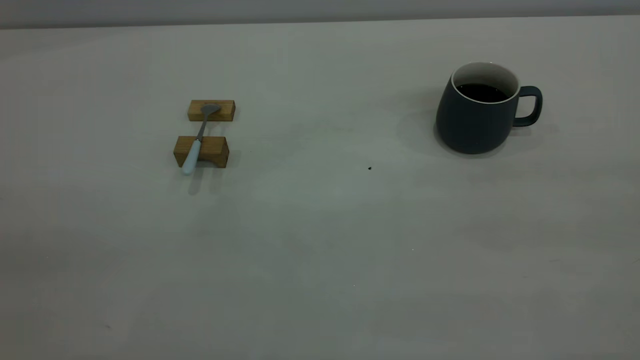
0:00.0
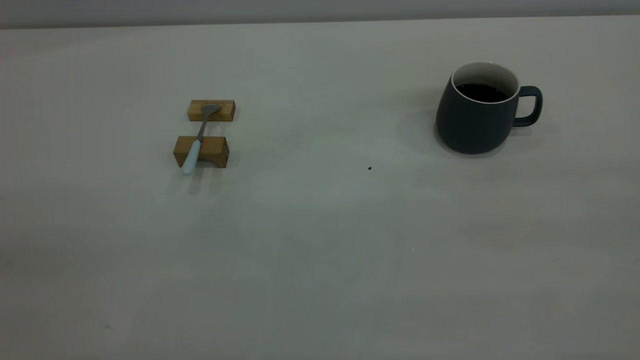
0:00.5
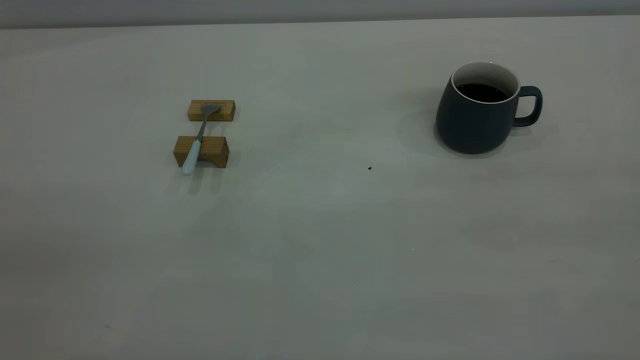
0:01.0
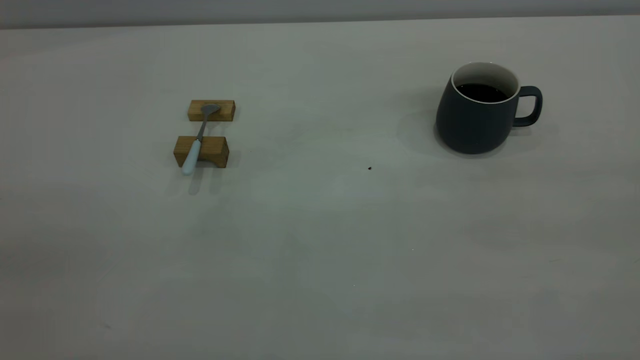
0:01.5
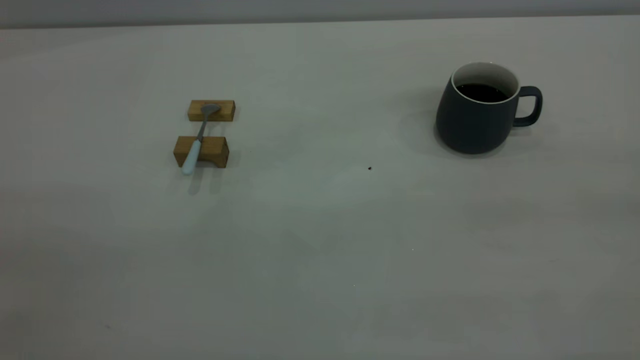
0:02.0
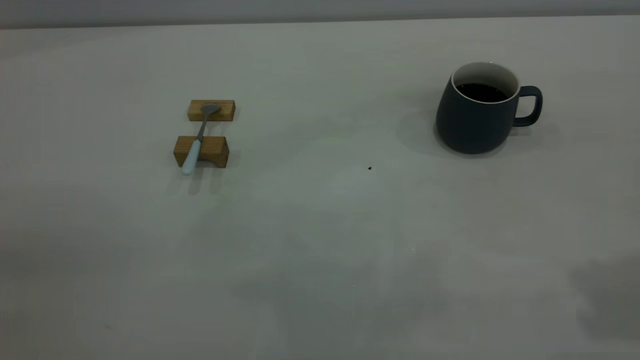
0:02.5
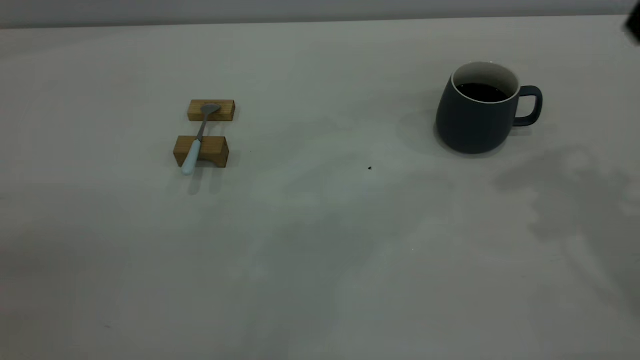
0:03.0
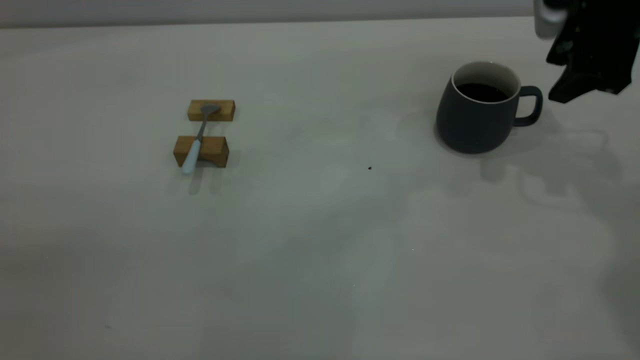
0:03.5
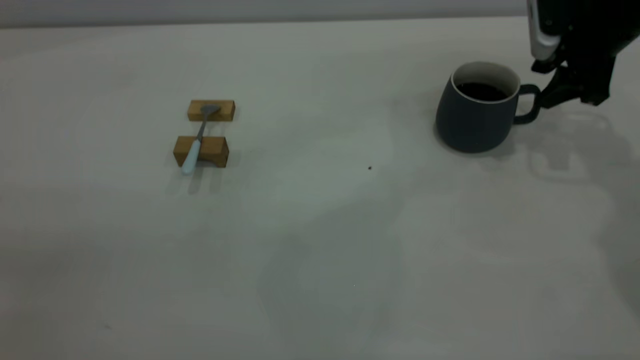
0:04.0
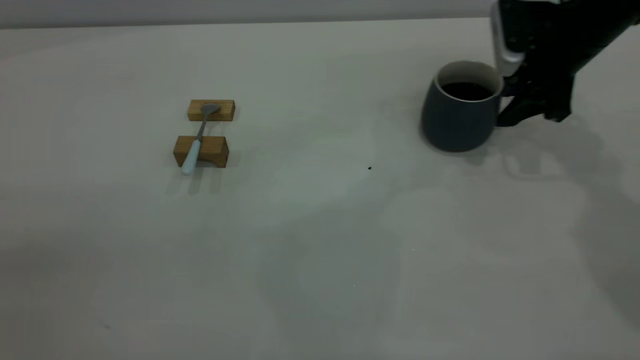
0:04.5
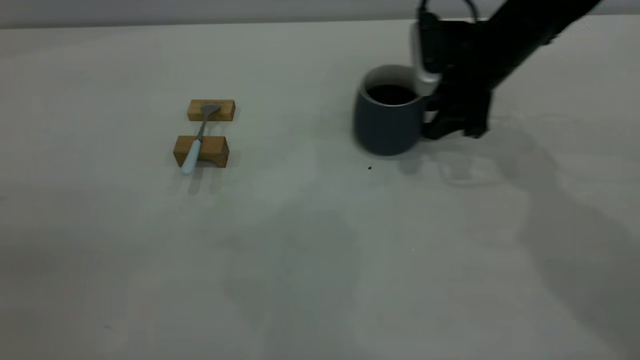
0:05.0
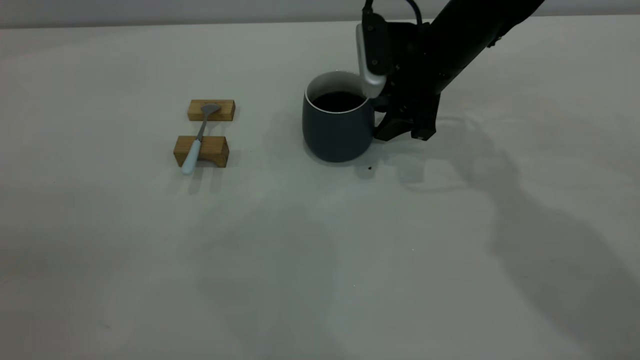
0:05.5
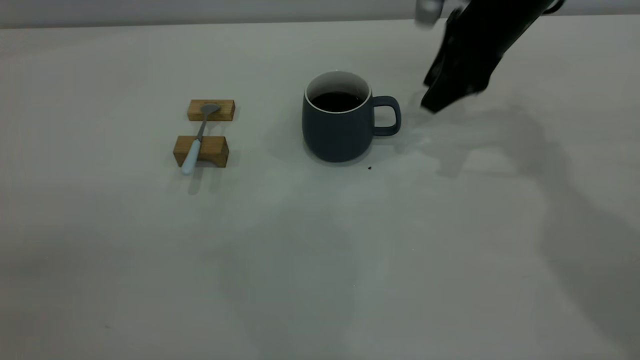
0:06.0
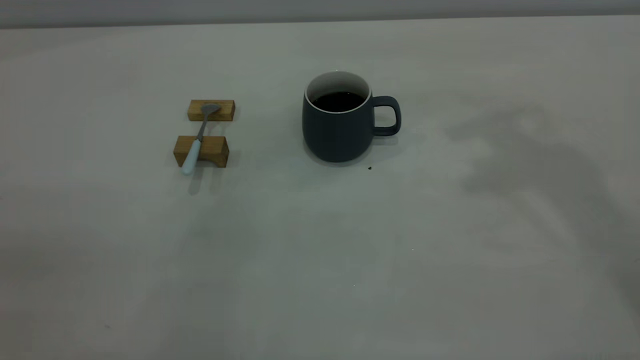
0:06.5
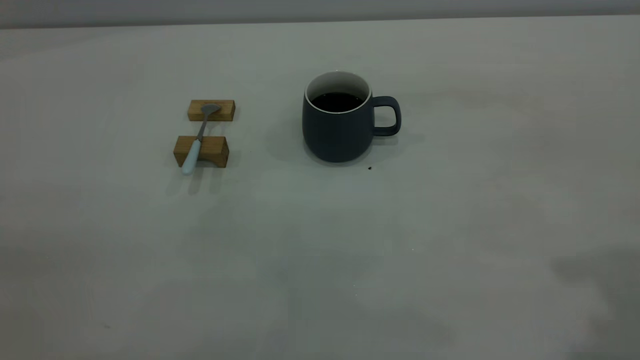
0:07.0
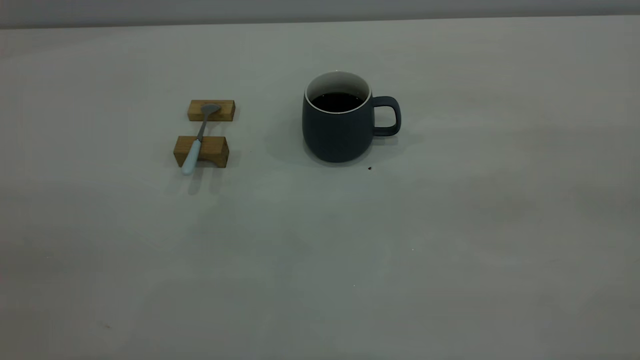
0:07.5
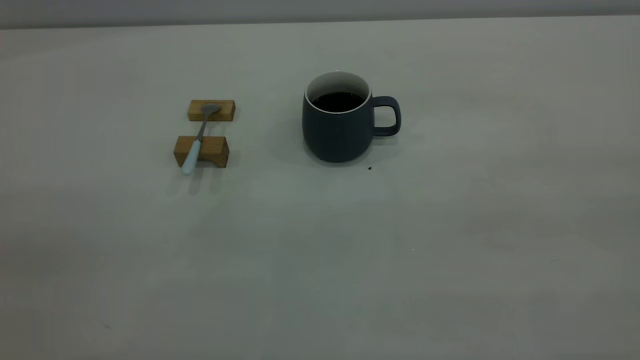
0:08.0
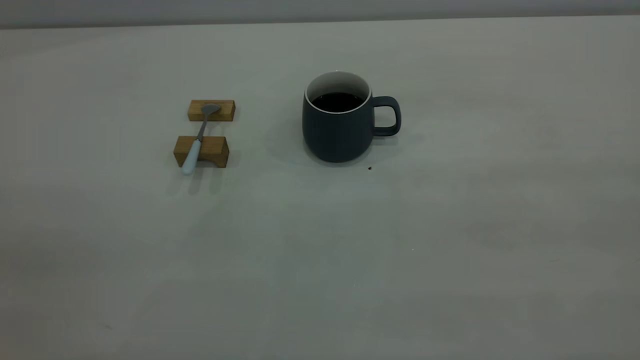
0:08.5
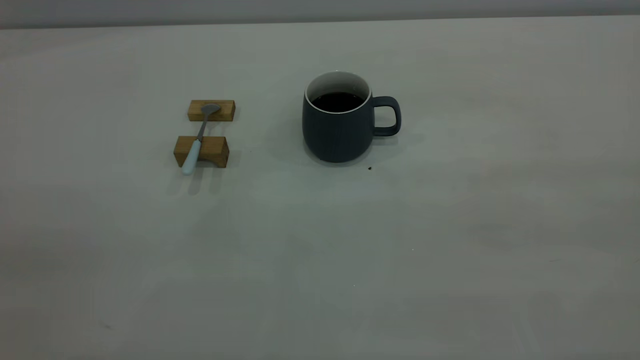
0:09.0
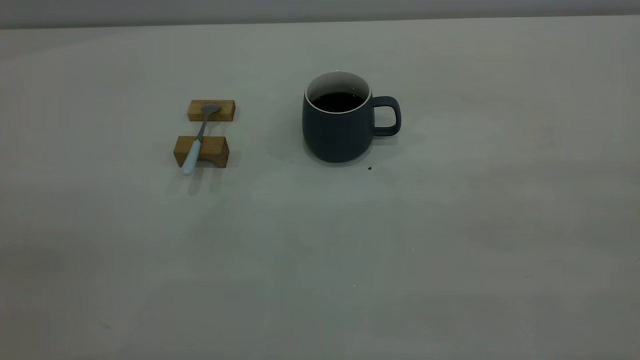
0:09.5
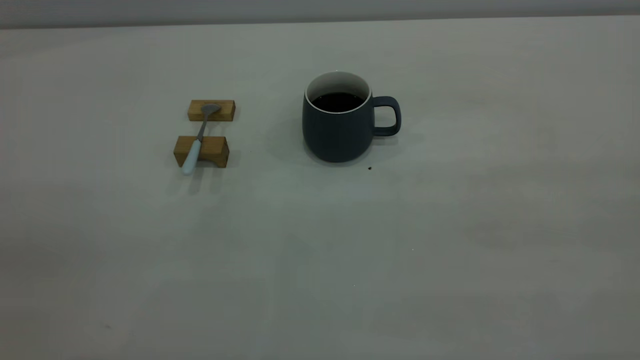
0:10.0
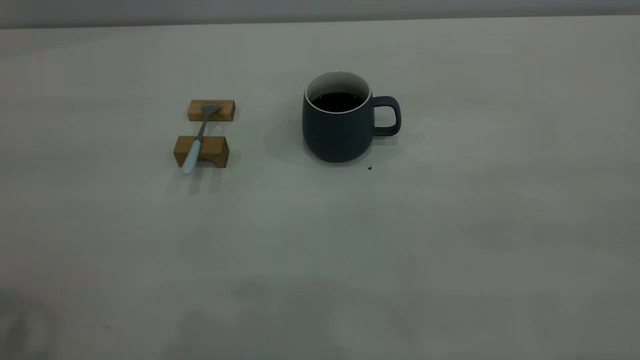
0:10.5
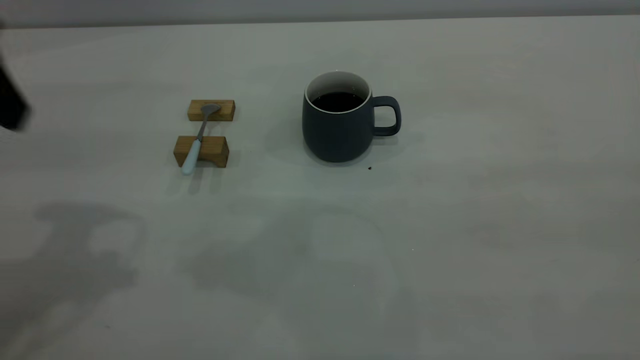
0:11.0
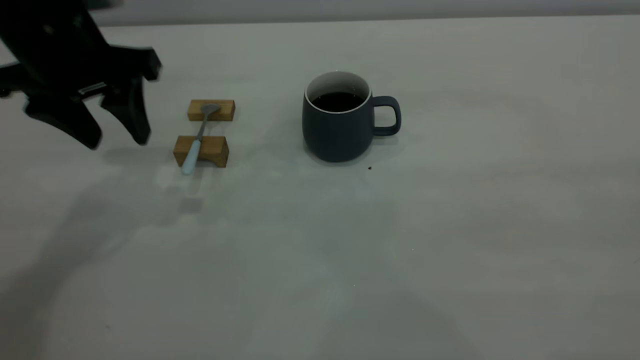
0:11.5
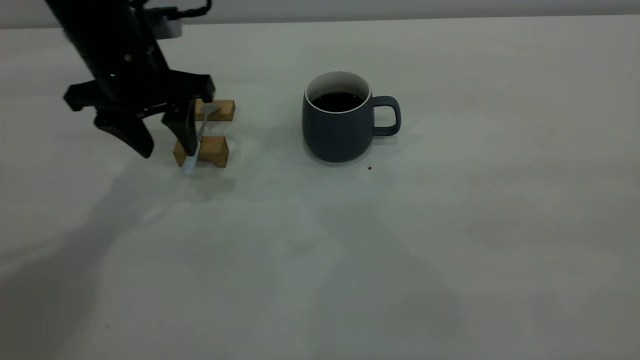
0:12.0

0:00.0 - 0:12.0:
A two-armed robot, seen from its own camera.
Step, 0:00.0 - 0:06.0: Move the cup with coffee to the center of view.
0:02.0 - 0:04.0: The right gripper heads forward and downward, covering about 50 cm, and opens.
0:04.0 - 0:06.0: The right gripper moves to the left, some 10 cm.
0:06.0 - 0:08.0: The right gripper heads backward and upward, covering roughly 50 cm.
0:08.0 - 0:10.0: Both grippers stay about where they are.
0:10.0 - 0:12.0: The left gripper travels forward and downward by some 40 cm.

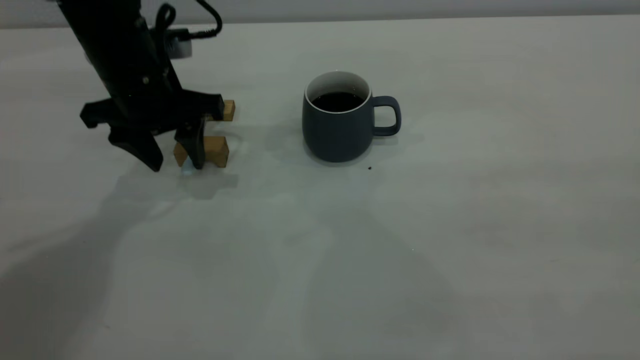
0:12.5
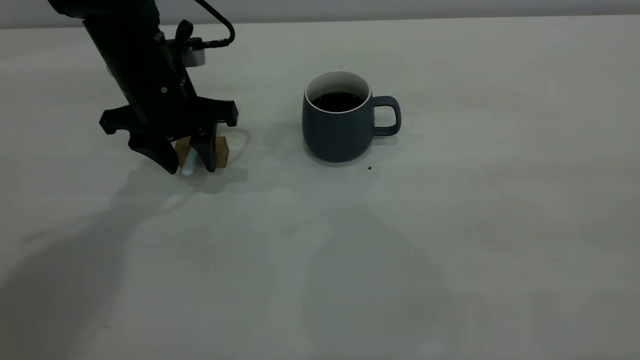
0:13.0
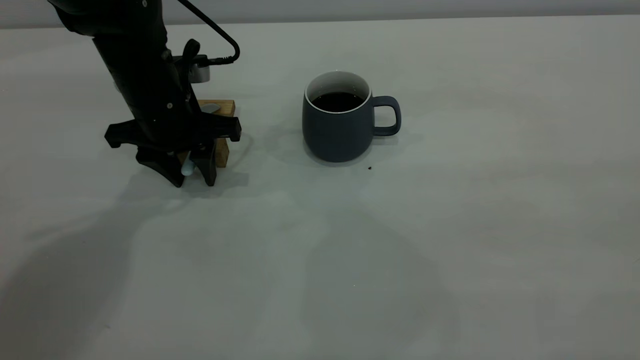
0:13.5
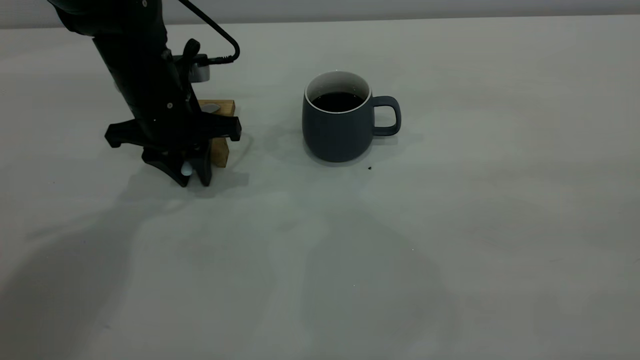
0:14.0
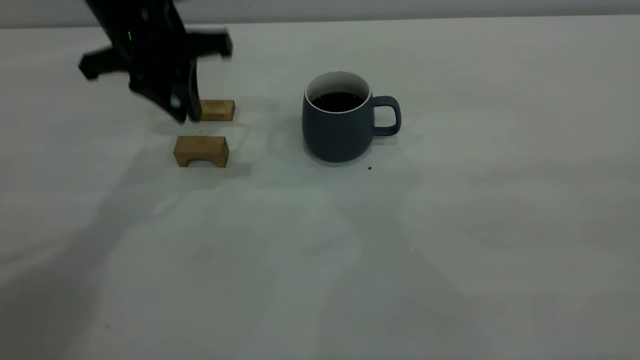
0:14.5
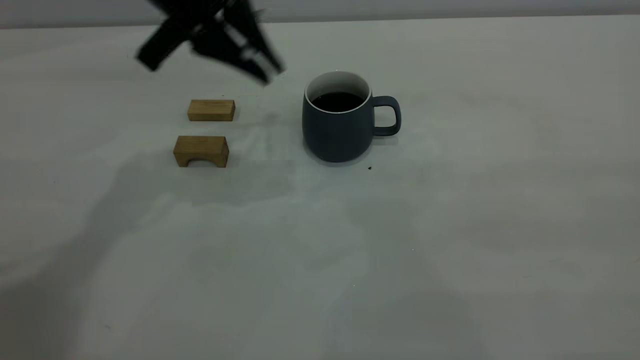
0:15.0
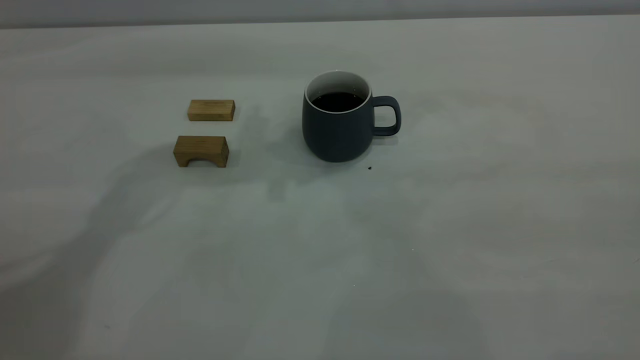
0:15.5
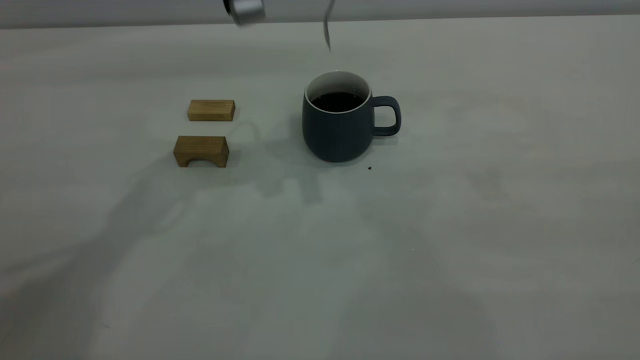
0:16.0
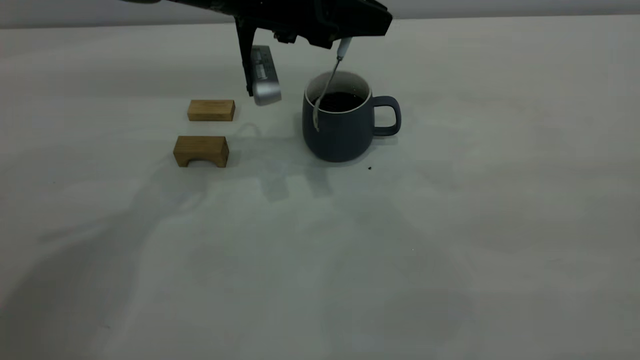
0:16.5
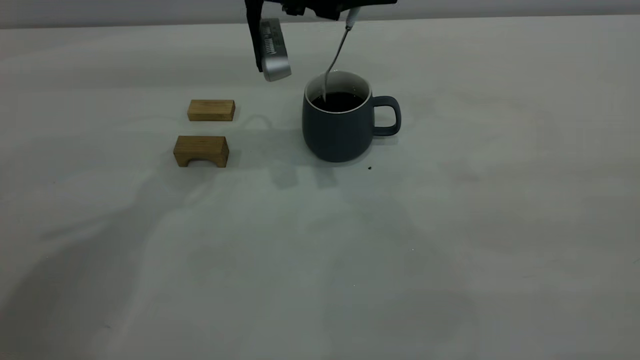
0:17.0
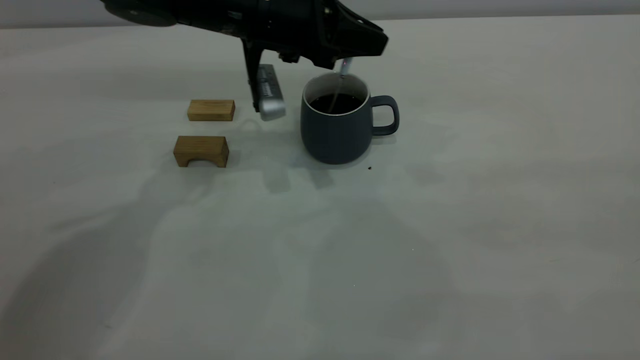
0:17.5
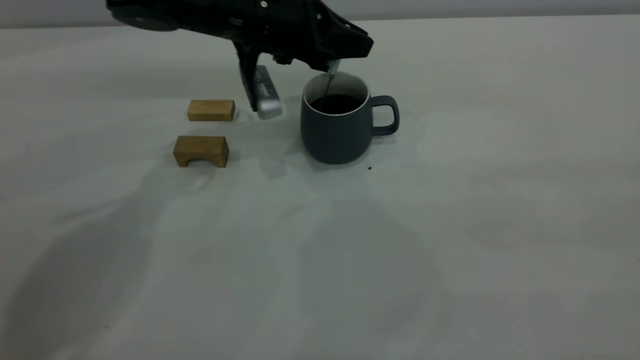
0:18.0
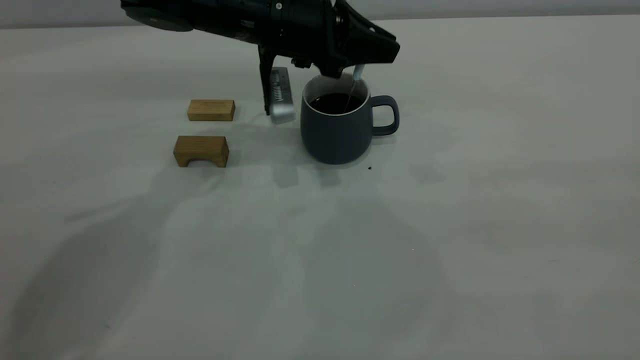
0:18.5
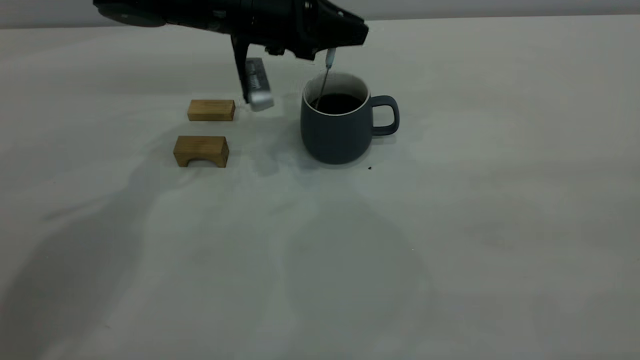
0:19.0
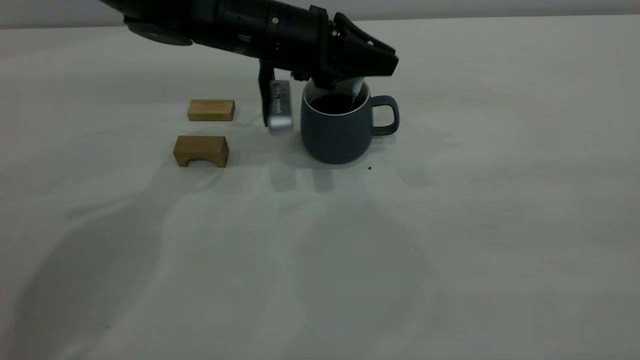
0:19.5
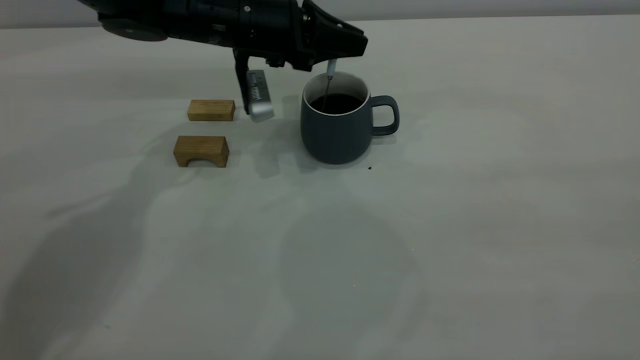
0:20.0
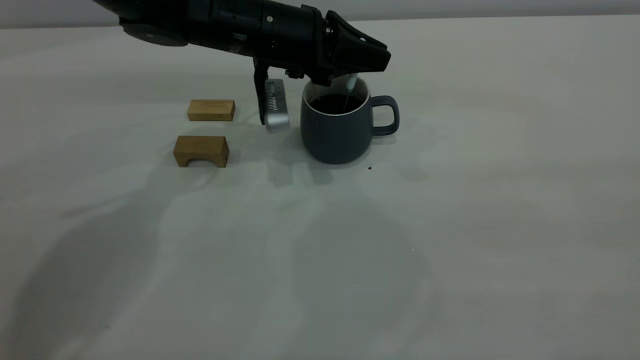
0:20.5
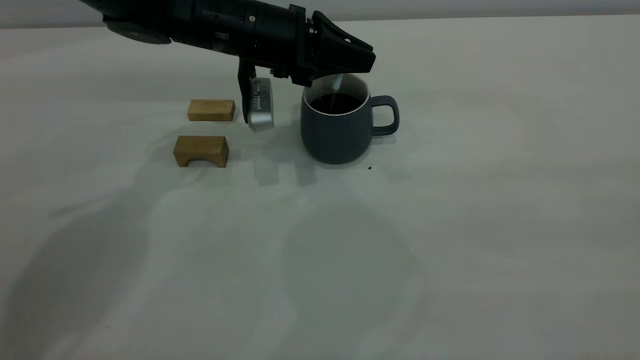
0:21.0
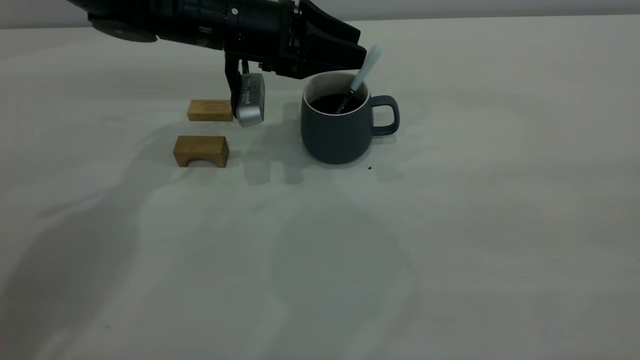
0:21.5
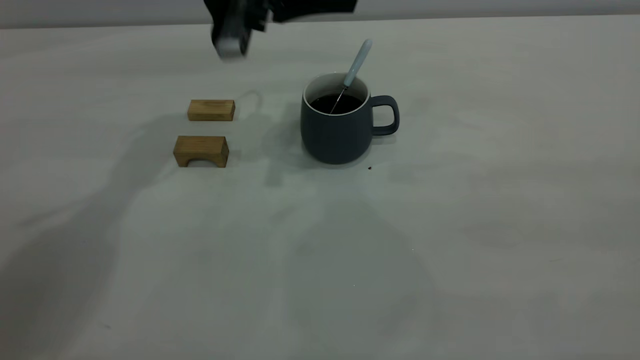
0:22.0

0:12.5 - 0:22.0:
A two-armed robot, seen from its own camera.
Step, 0:14.5 - 0:22.0: Stir the coffee in the cup.
0:12.5 - 0:14.5: The left gripper travels upward by some 10 cm, and closes its fingers.
0:14.5 - 0:16.5: The left gripper is displaced to the right by roughly 10 cm, and moves approximately 10 cm upward and comes back.
0:16.5 - 0:18.0: The left gripper is displaced downward by roughly 5 cm.
0:18.0 - 0:20.0: The grippers stay close to where they were, moving slightly.
0:20.0 - 0:22.0: The left gripper travels upward by roughly 10 cm, and opens.
